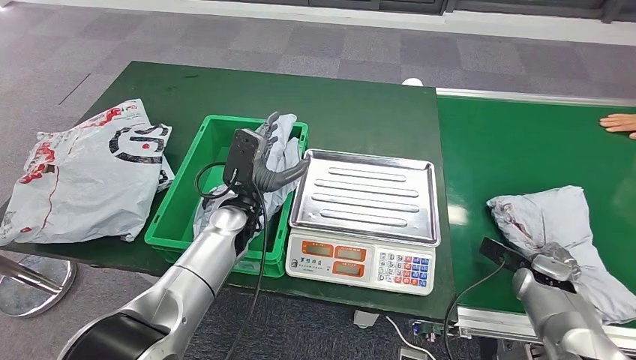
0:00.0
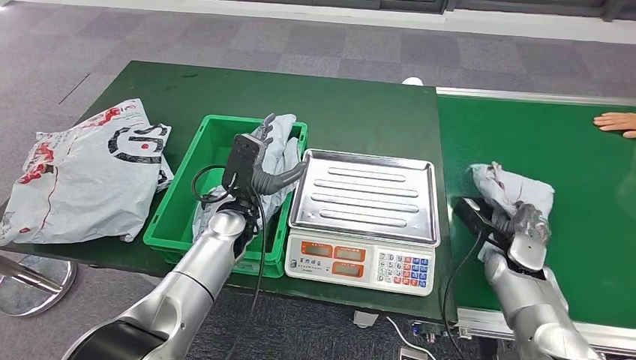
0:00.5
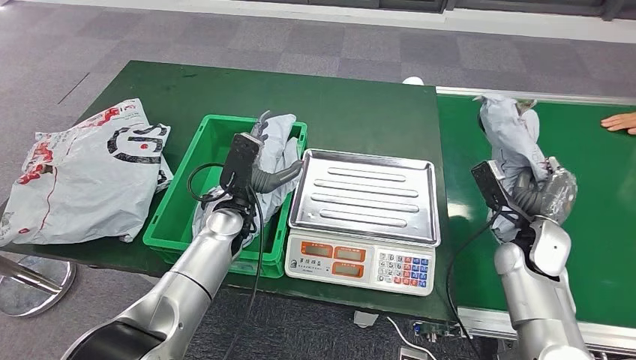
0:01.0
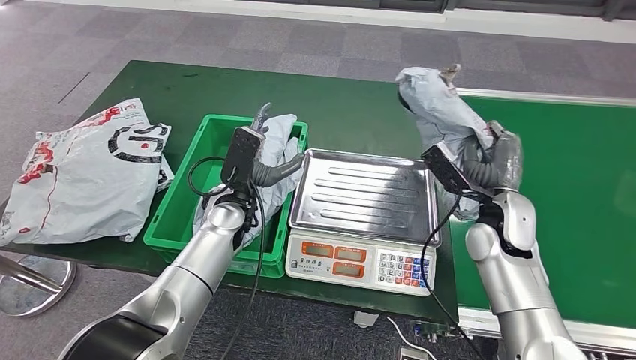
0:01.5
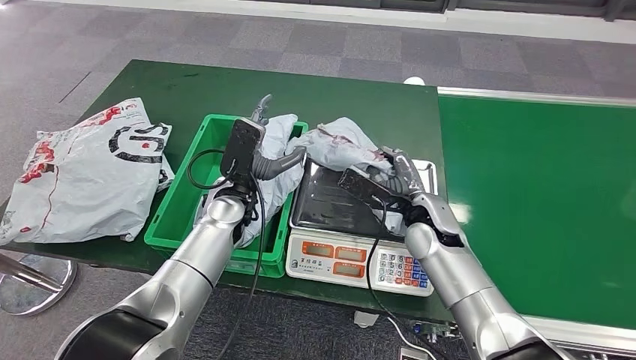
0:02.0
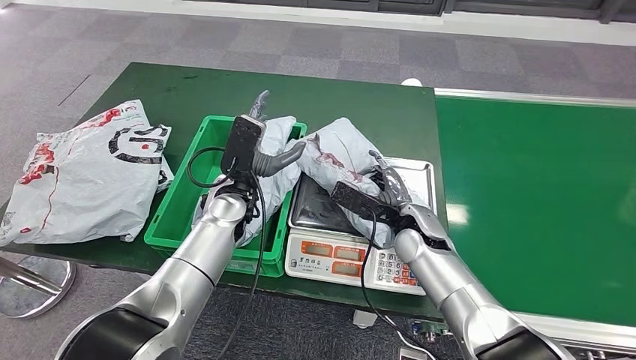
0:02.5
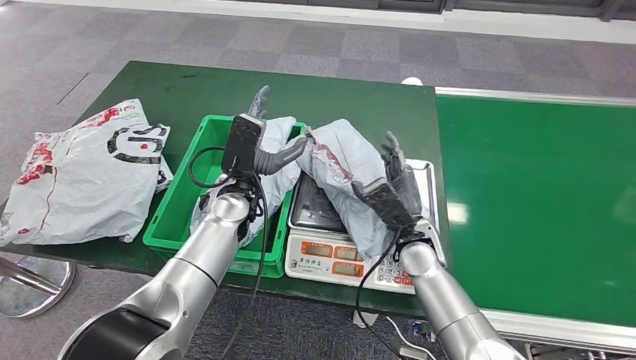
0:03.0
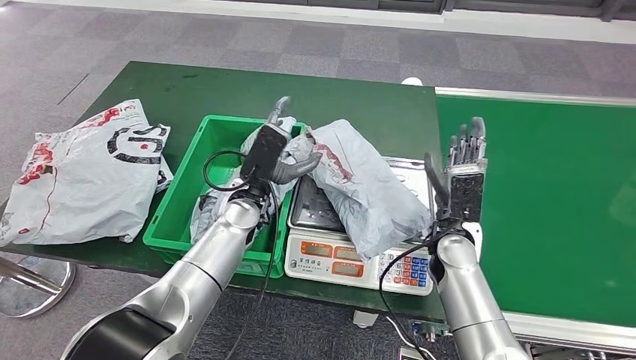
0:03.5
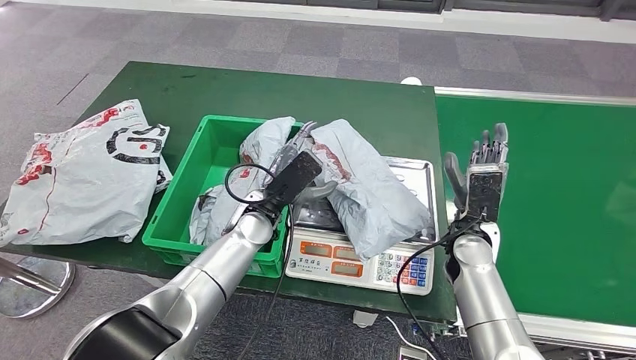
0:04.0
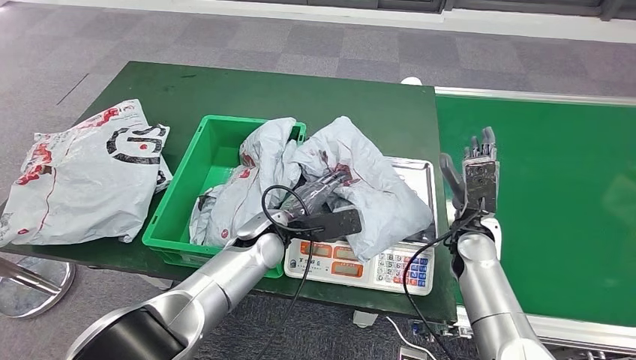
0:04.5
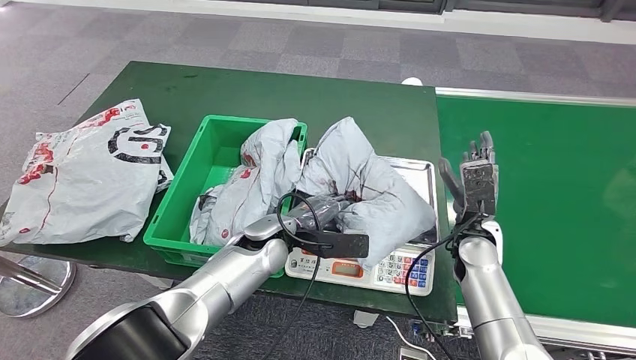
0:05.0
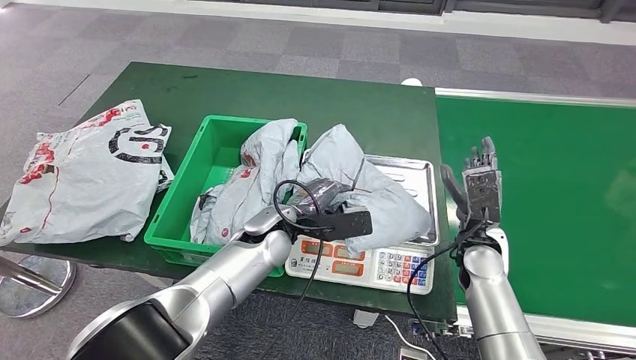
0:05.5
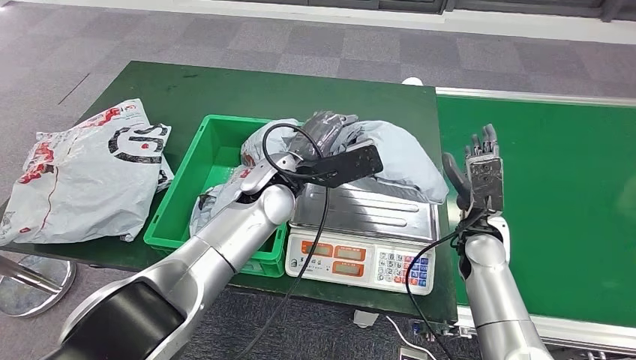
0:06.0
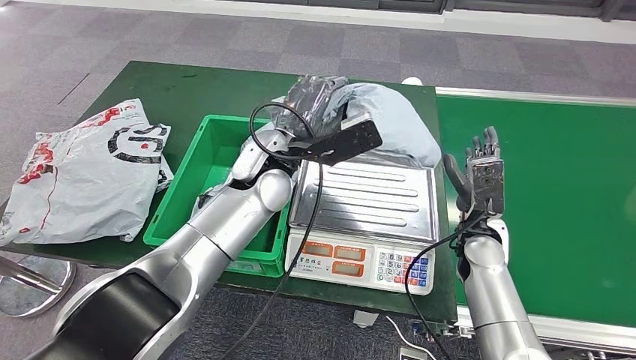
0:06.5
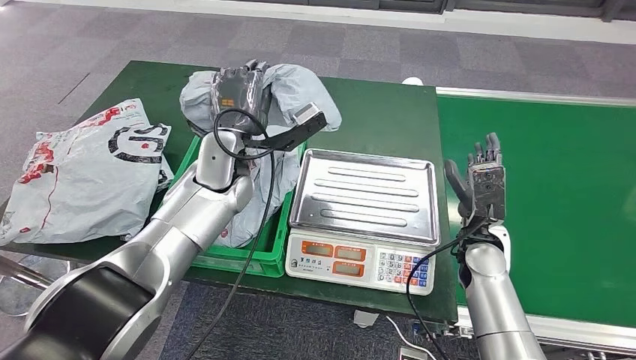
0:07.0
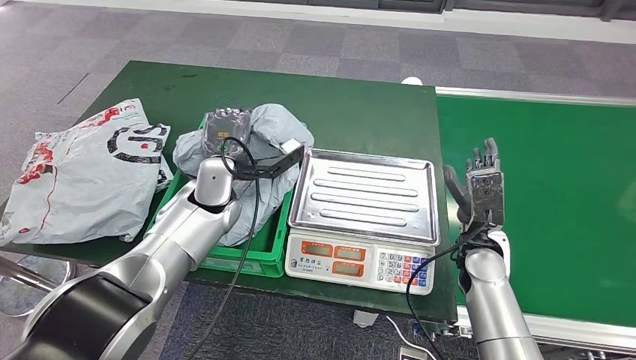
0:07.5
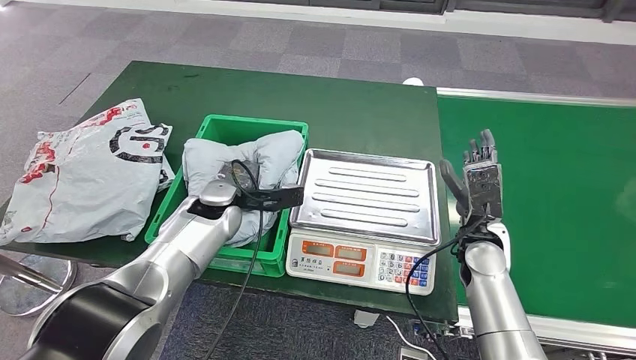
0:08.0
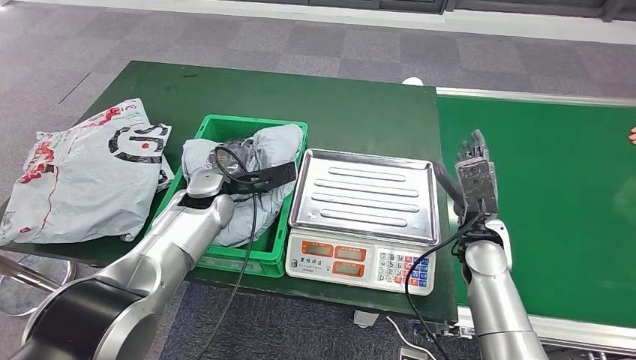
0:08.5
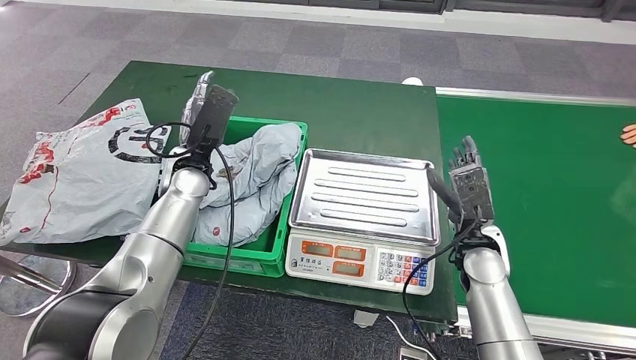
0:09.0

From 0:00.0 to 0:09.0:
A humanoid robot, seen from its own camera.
Step, from 0:00.0 to 0:01.0: Pick up the parcel from the conveyor belt.
Step, from 0:01.5 to 0:03.5: Place the parcel onto the inbound machine.
Step, from 0:05.5 to 0:06.5: Pick up the parcel from the inbound machine.
Step, from 0:07.0 to 0:09.0: Place the parcel into the delivery box.
From 0:07.0 to 0:09.0: The left hand travels to the left by about 10 cm.
